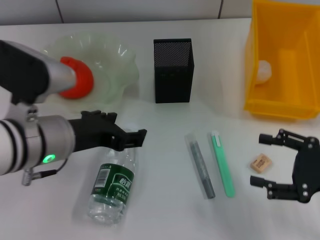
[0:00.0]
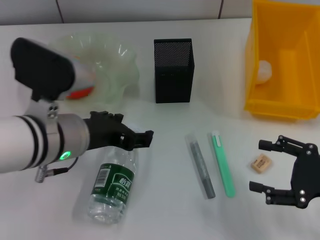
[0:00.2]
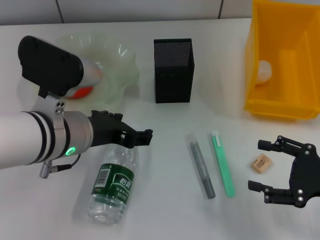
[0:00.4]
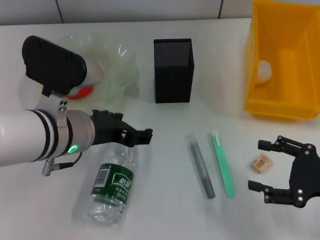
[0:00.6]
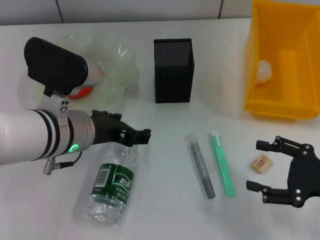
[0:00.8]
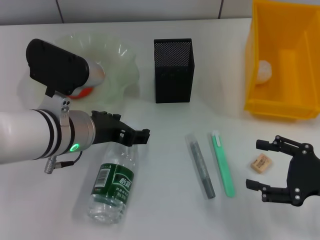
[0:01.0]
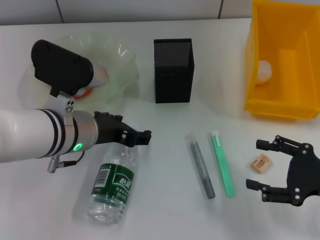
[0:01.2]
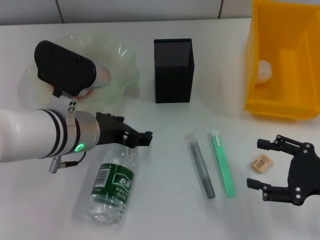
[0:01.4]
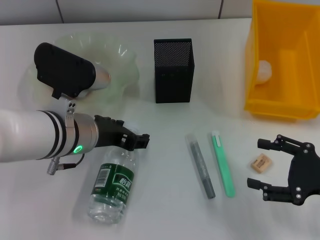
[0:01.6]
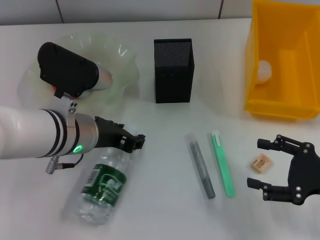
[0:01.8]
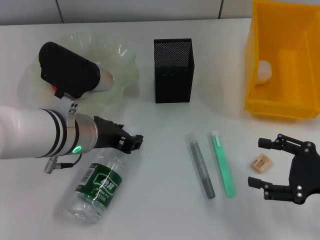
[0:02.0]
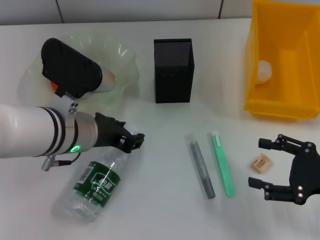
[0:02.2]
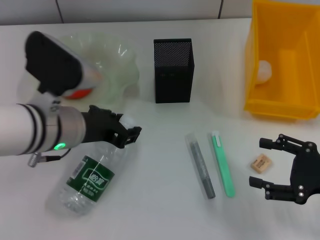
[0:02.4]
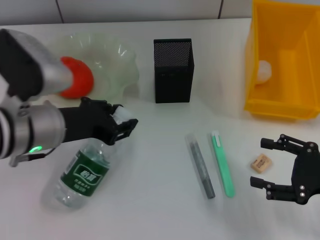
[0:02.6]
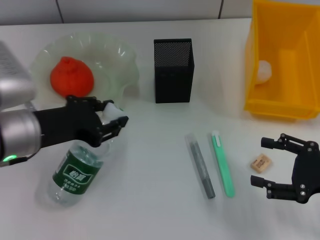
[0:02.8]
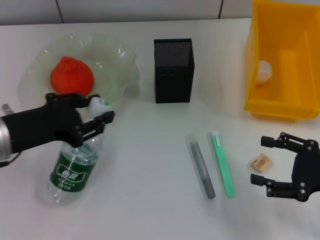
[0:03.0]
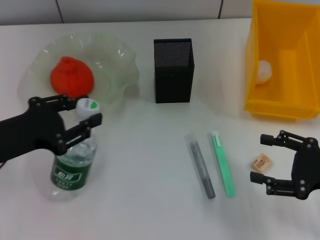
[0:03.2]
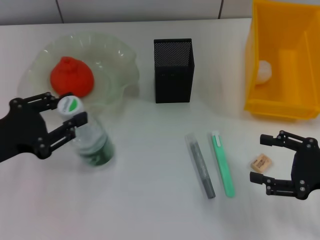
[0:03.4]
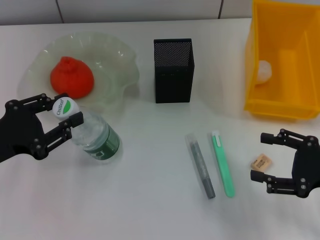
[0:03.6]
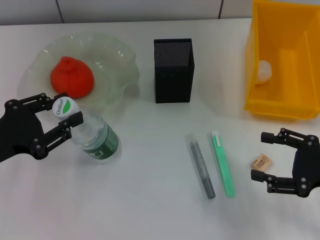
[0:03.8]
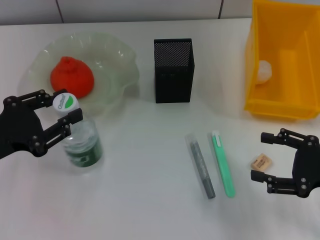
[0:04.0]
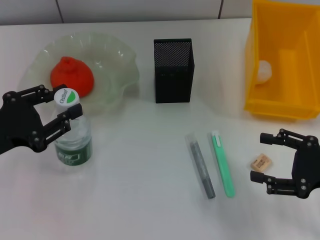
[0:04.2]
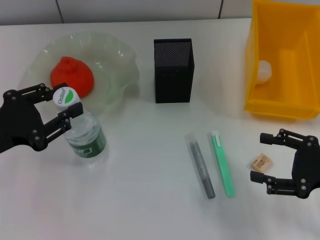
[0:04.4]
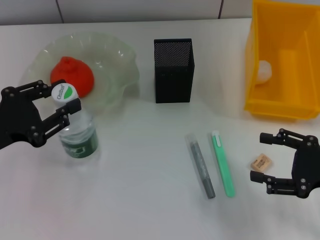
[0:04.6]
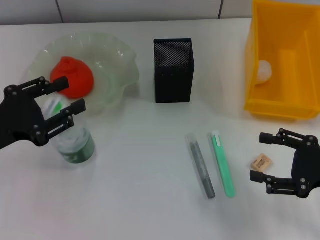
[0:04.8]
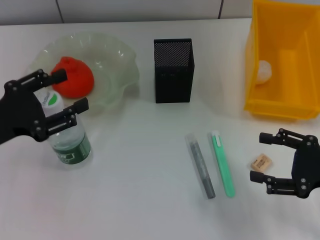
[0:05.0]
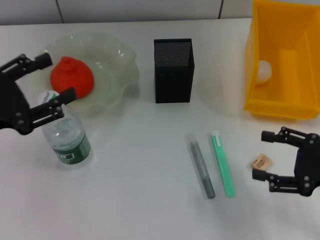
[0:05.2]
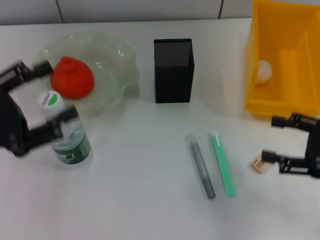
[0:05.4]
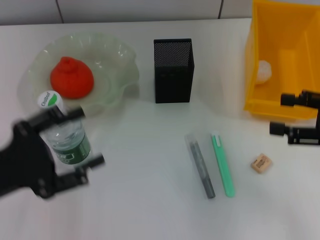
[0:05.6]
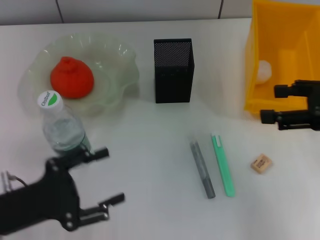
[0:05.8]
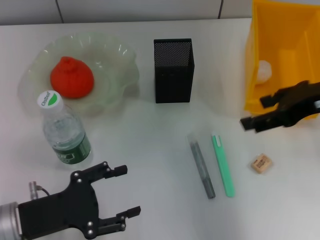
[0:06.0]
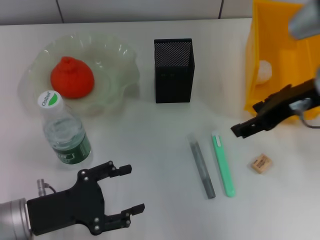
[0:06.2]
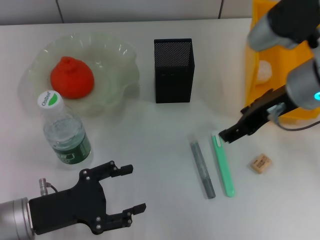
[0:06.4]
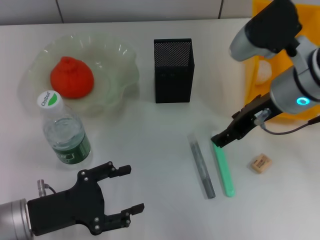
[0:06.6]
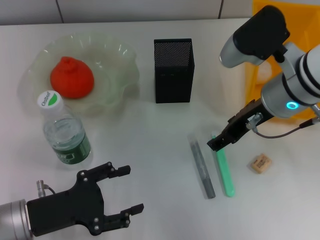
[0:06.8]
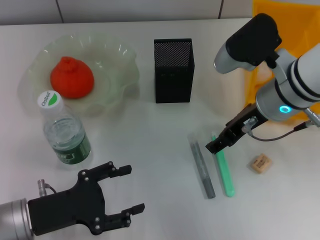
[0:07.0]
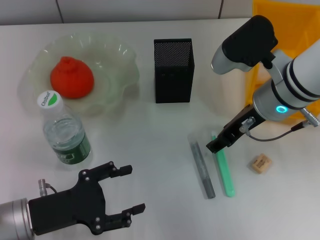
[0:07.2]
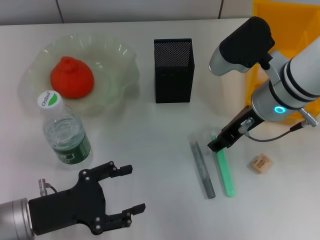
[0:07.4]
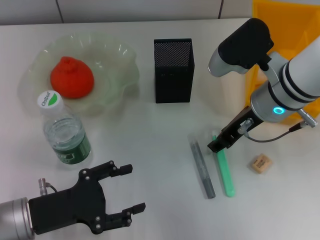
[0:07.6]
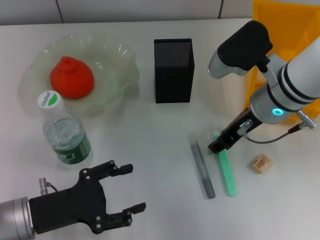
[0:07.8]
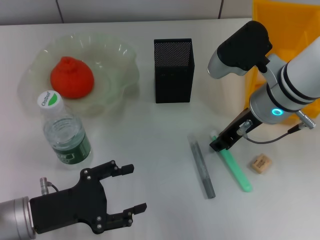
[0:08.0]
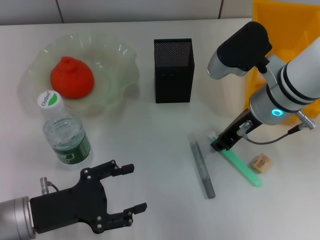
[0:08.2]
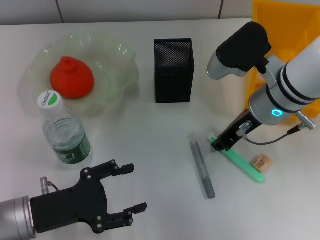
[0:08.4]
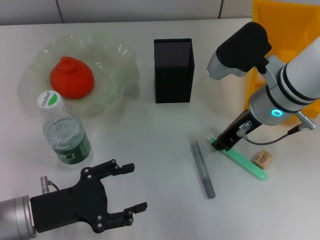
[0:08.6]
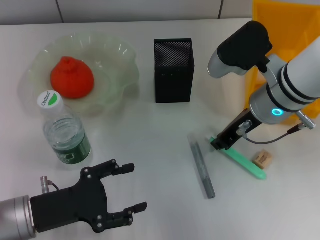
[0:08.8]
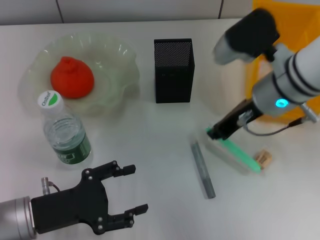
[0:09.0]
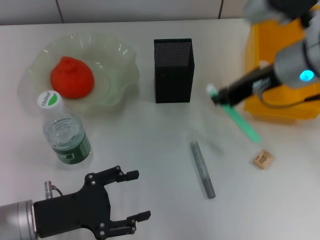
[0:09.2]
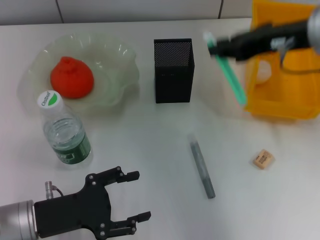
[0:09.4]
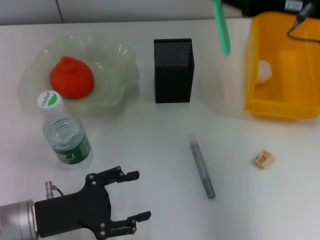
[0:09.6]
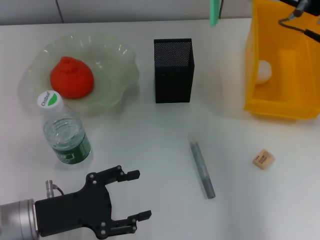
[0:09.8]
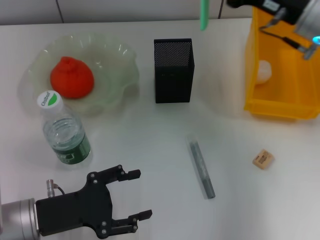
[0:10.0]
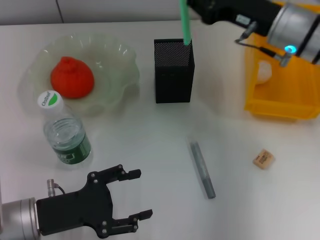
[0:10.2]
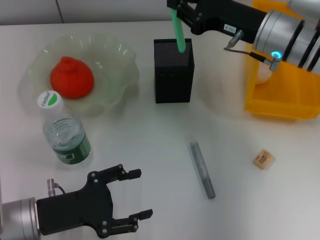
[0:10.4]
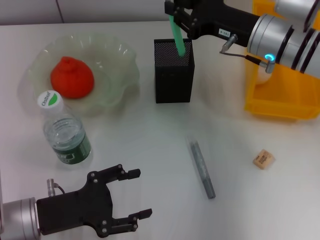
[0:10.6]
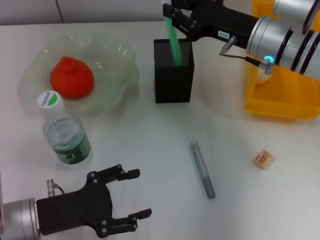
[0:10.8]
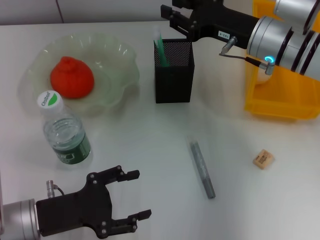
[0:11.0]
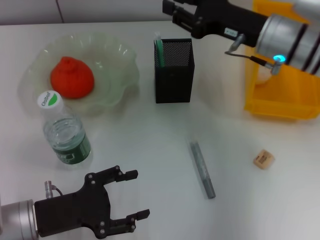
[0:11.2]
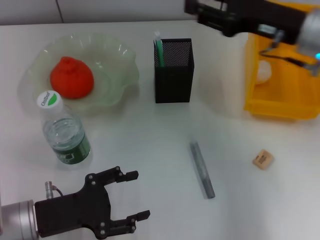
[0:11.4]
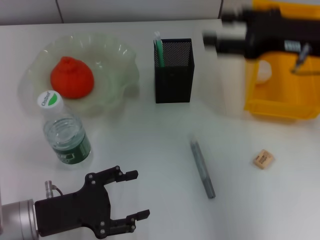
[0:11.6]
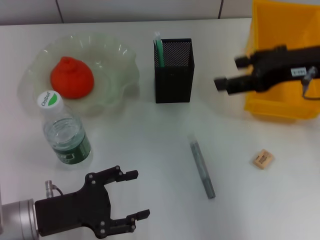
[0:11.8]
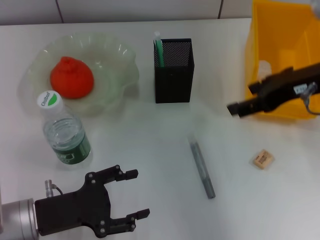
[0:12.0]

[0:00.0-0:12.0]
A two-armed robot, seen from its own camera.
Step, 0:00.0 to 0:02.0: Grab the water bottle with the left hand.
Step, 0:02.2 to 0:04.8: Place the water bottle on the table with the left hand.
Step, 0:05.0 to 0:08.6: Grab the blue utility knife with the right hand.
Step, 0:08.8 to 0:10.8: Place the blue utility knife into the pen holder with the right hand.
0:00.0 to 0:01.6: The left gripper changes place by roughly 5 cm.
0:01.6 to 0:03.0: The left gripper heads to the left, covering roughly 10 cm, and closes up.
0:03.0 to 0:04.4: The grippers stay close to where they were, moving slightly.
0:04.4 to 0:06.0: The right gripper goes about 15 cm upward, forward and to the left, while the left gripper moves downward, some 10 cm, and opens up.
0:06.0 to 0:07.6: The right gripper shifts some 10 cm to the left and downward.
0:07.6 to 0:09.0: The right gripper closes.
0:09.0 to 0:10.4: The right gripper heads forward, covering about 5 cm, and travels upward and back again, roughly 10 cm each way.
0:10.4 to 0:12.0: The right gripper moves backward and upward, approximately 10 cm, and opens.

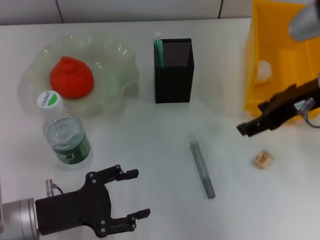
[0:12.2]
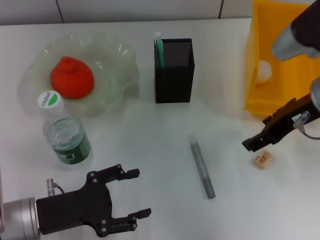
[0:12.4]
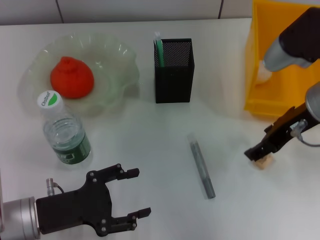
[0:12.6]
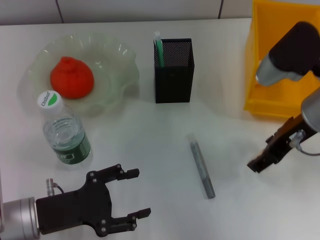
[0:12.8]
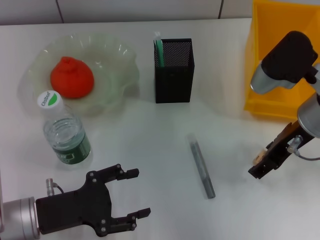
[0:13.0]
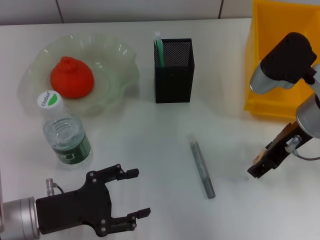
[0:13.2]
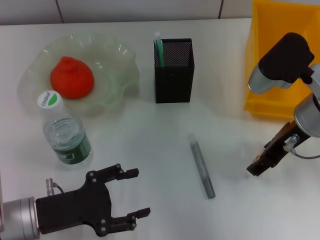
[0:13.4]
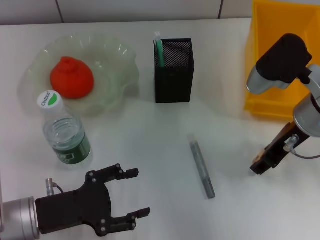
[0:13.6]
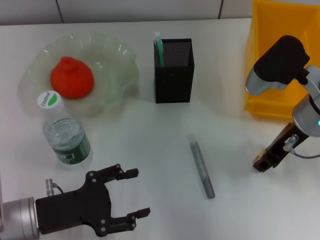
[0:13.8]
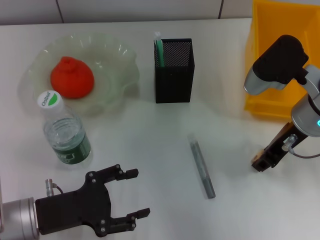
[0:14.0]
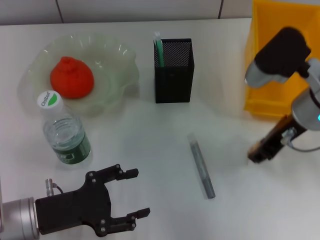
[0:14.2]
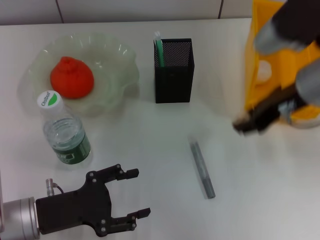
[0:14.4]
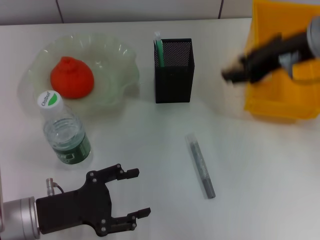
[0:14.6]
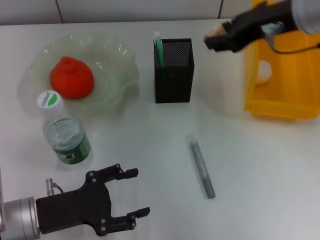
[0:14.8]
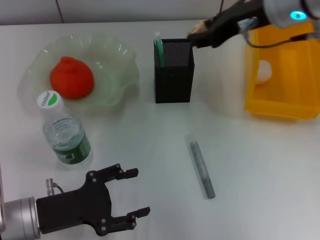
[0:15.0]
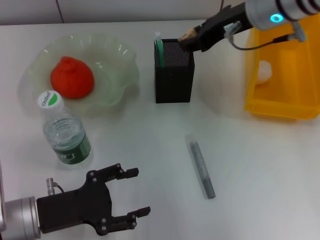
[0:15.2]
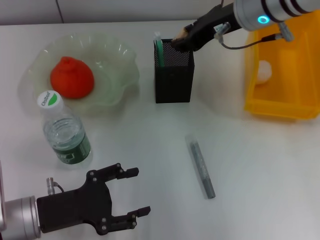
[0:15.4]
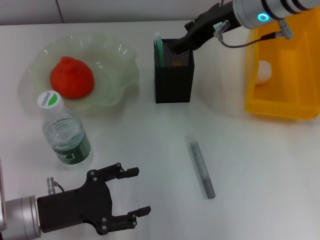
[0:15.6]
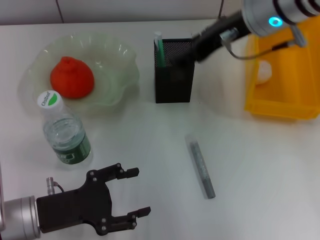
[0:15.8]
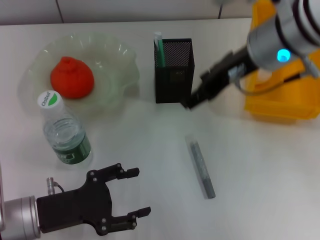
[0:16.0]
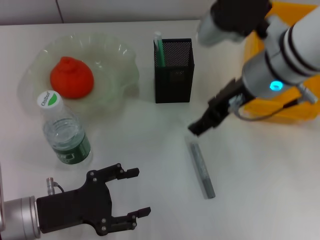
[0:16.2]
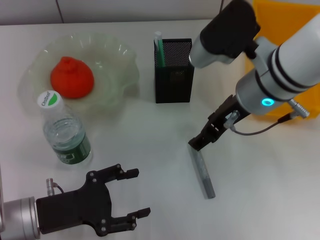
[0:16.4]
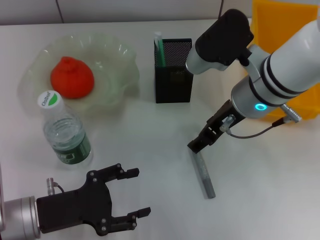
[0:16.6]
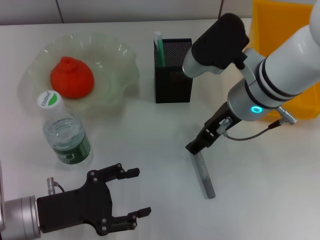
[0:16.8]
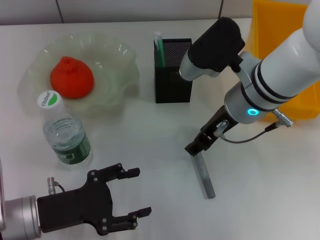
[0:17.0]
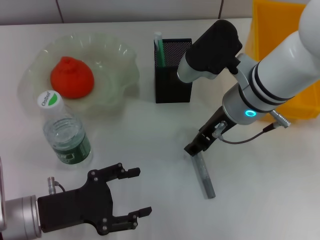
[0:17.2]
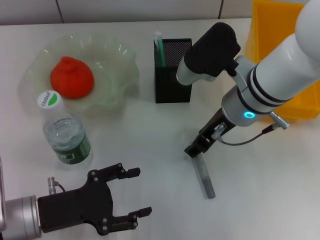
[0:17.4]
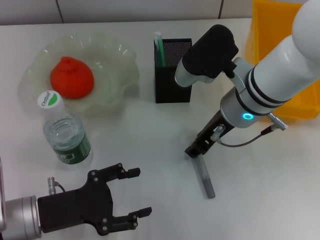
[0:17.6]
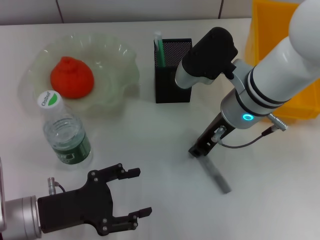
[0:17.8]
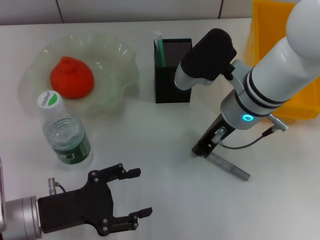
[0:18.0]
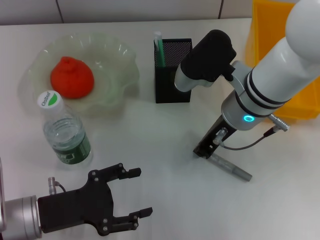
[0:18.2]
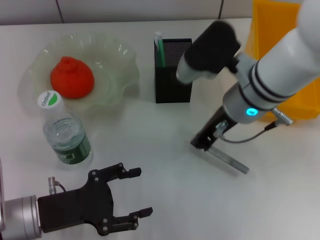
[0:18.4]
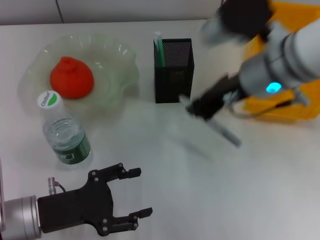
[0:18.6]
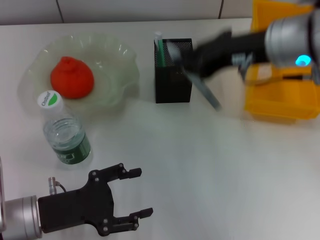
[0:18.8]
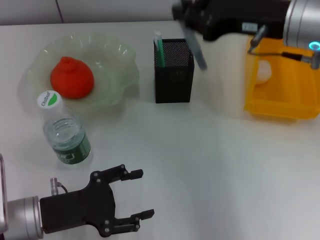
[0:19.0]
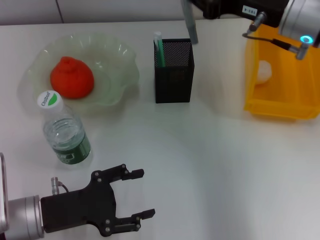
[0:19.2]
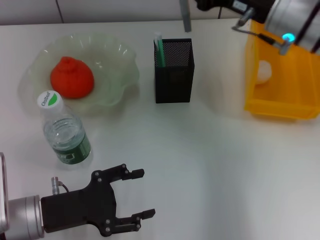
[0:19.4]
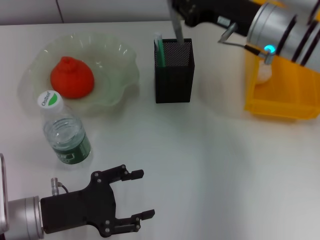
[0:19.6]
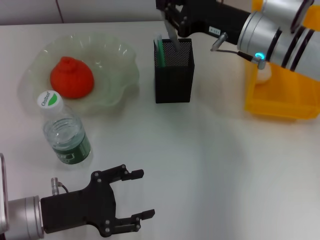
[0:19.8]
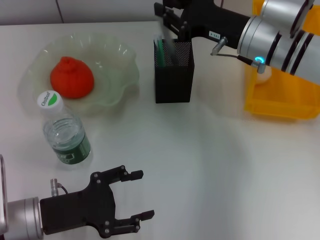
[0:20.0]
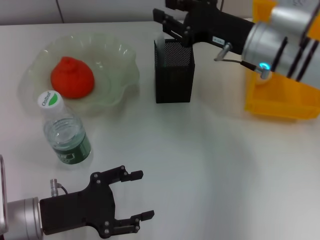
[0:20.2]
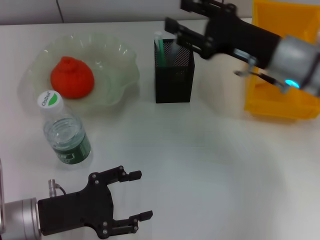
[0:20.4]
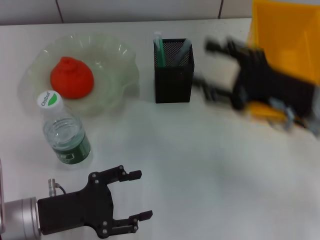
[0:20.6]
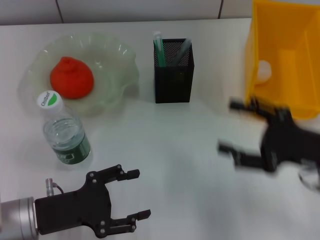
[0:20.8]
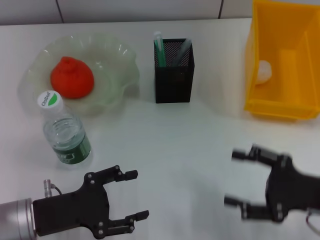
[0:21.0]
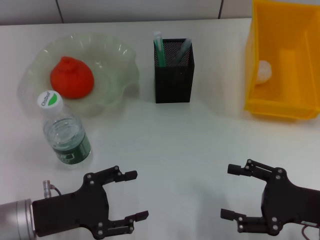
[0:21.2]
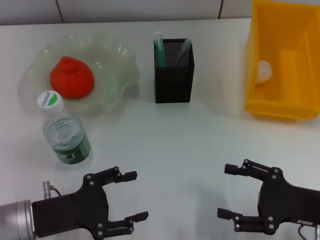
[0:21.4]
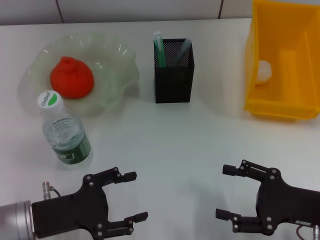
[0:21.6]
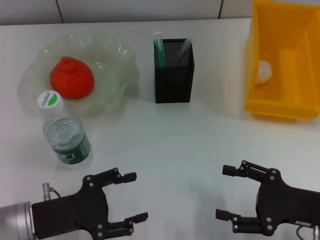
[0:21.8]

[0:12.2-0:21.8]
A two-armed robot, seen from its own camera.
Step, 0:12.2 to 0:13.8: Grab the eraser with the right hand.
Step, 0:14.2 to 0:15.4: Put the eraser into the pen holder with the right hand.
Step, 0:15.6 to 0:18.0: Grab the gray glue with the right hand.
Step, 0:18.4 to 0:20.0: Place the gray glue into the pen holder with the right hand.
0:12.2 to 0:13.8: The right gripper goes some 5 cm downward.
0:13.8 to 0:15.4: The right gripper shifts about 15 cm forward, upward and to the left.
0:15.4 to 0:17.0: The right gripper moves backward and downward, roughly 10 cm, and opens.
0:17.0 to 0:18.6: The right gripper shifts by approximately 5 cm, and closes its fingers.
0:18.6 to 0:20.2: The right gripper heads downward and forward, covering approximately 10 cm.
0:20.2 to 0:21.8: The right gripper shifts about 25 cm backward, to the right and downward, and opens.
